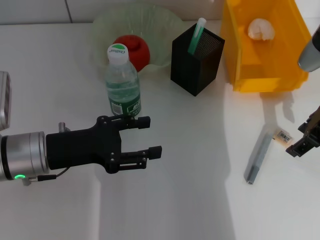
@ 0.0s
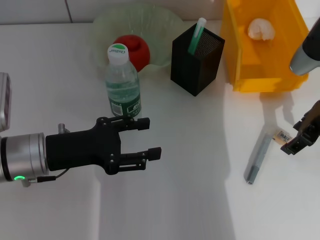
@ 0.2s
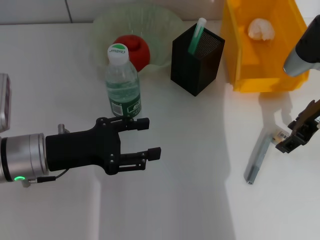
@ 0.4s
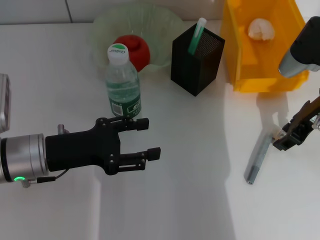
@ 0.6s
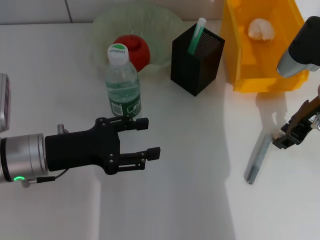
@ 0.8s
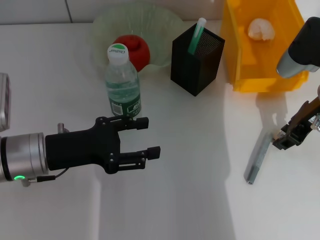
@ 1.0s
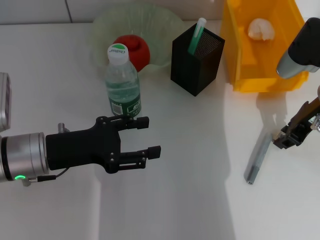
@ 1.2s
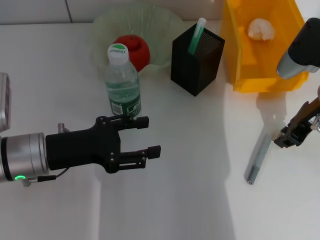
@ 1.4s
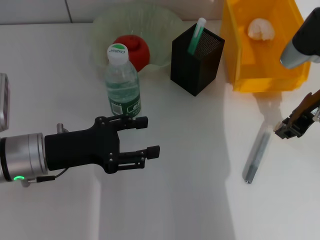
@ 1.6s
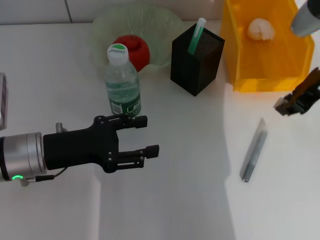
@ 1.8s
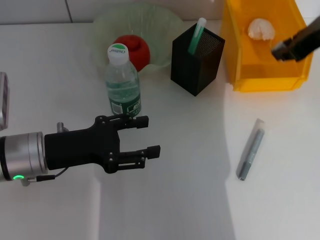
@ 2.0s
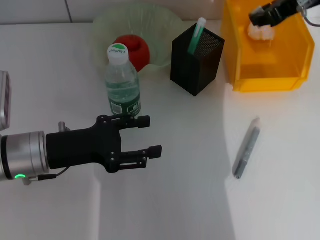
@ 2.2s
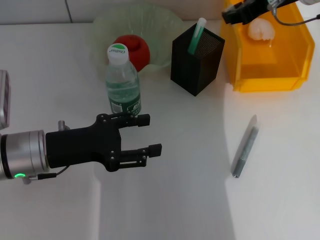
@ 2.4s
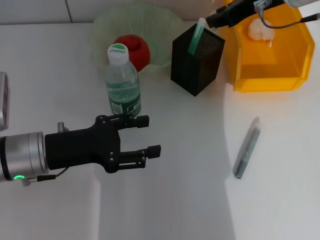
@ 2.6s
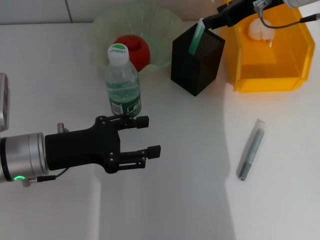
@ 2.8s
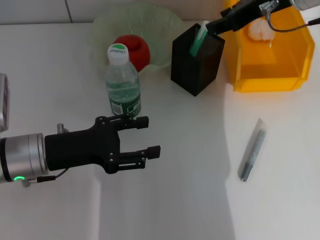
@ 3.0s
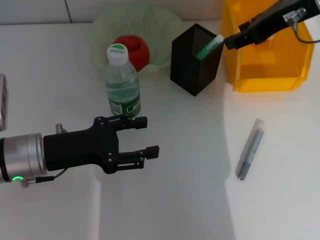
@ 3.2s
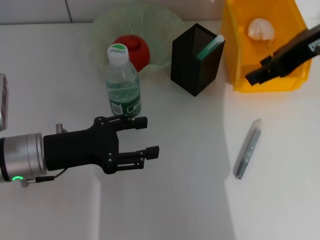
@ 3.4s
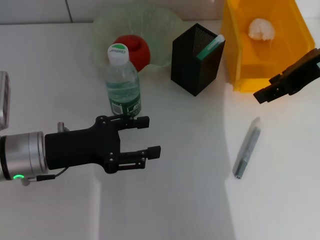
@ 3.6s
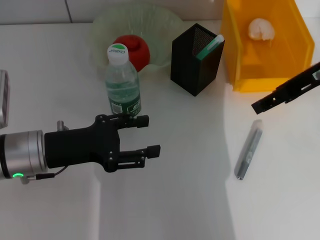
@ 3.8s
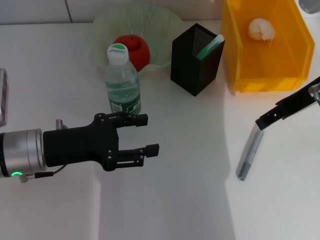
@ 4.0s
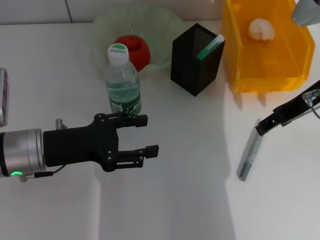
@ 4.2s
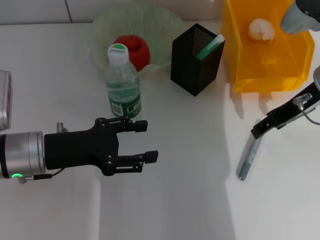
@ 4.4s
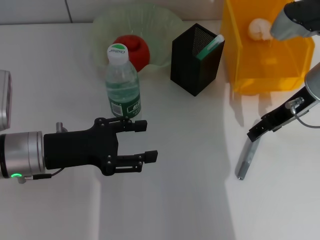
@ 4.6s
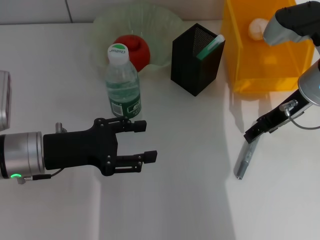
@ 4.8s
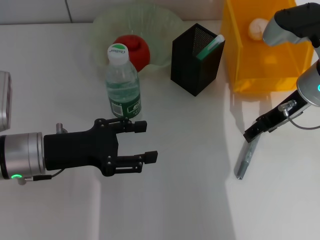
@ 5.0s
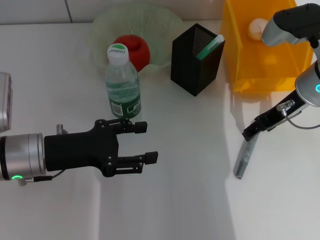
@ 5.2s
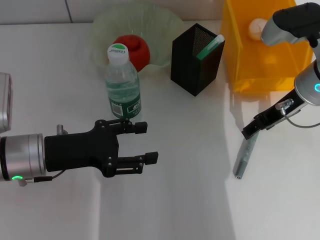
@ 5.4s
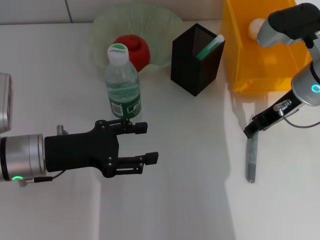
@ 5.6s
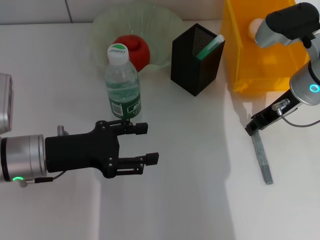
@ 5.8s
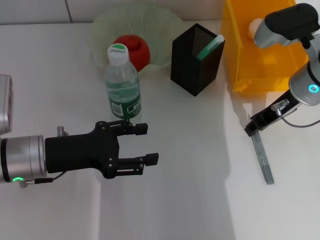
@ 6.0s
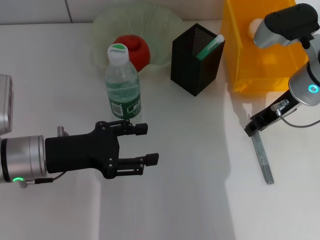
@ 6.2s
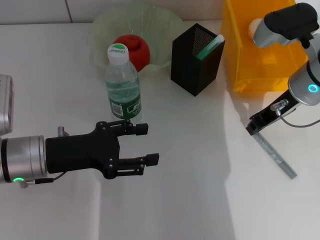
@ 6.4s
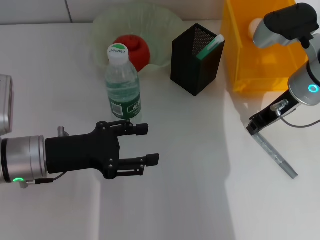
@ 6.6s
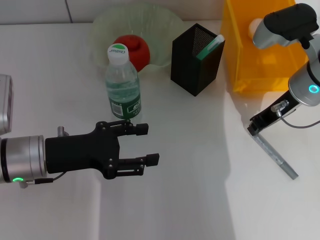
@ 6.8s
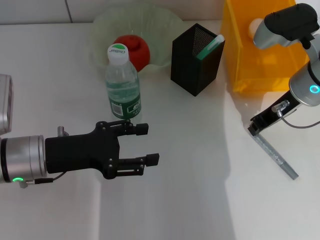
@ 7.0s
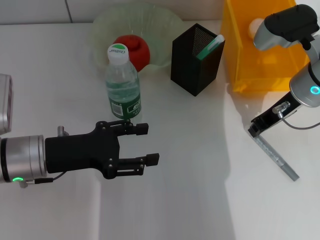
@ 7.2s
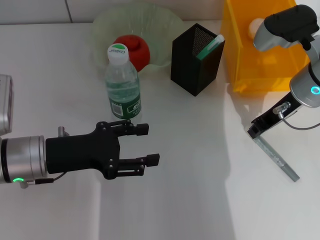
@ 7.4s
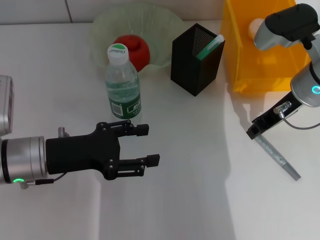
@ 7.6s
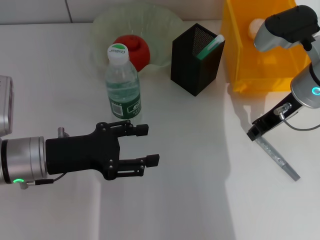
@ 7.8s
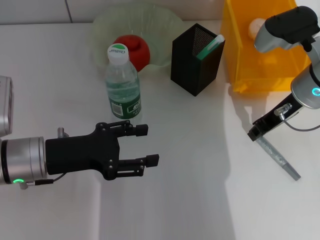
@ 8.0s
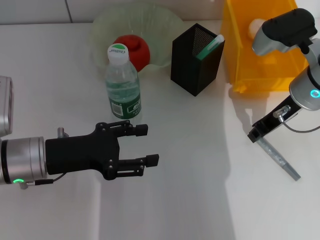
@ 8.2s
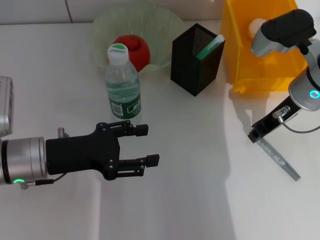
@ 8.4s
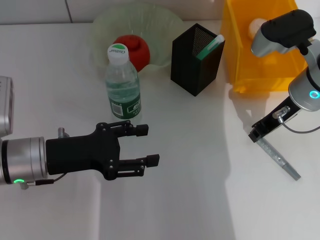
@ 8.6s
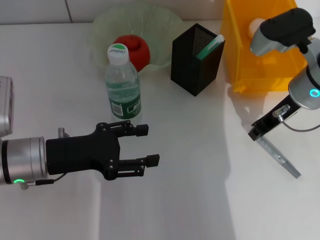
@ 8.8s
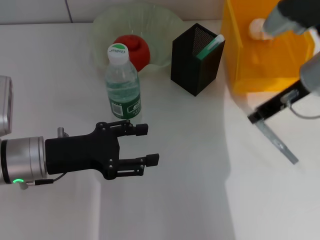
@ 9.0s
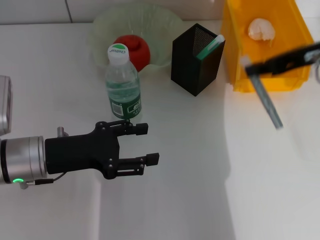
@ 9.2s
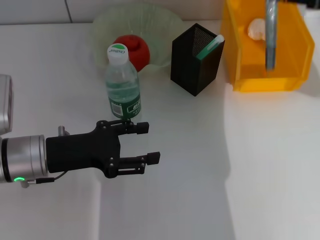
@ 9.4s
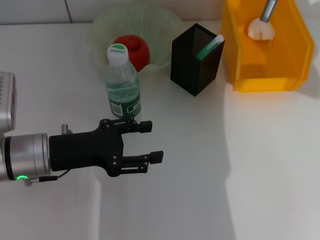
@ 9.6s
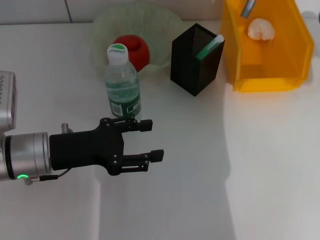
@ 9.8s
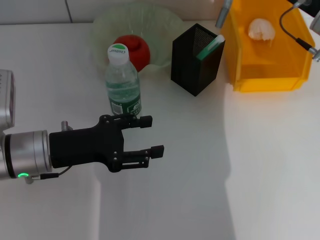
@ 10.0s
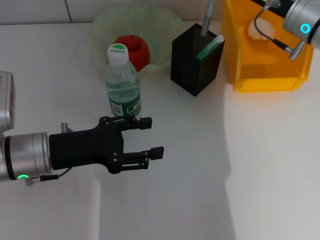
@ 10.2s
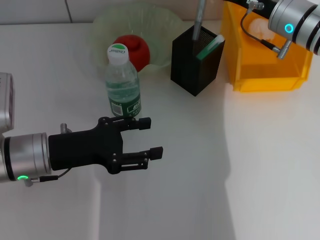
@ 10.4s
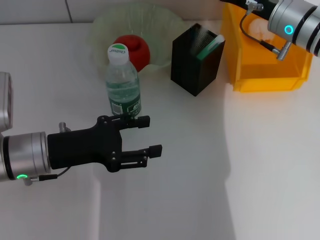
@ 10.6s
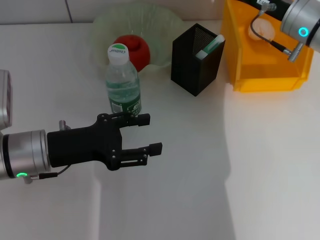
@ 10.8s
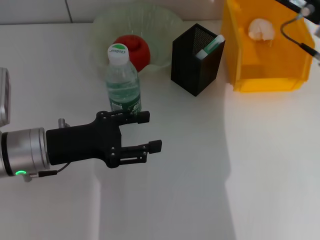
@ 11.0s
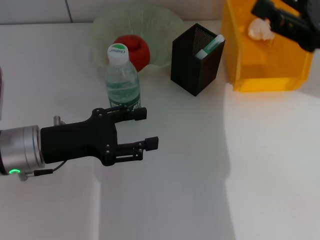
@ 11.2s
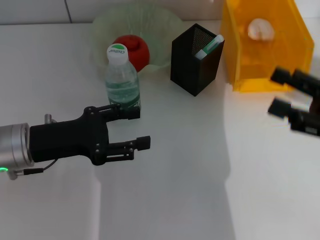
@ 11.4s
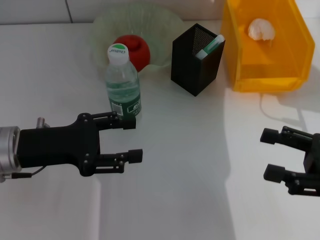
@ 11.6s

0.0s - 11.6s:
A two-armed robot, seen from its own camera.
Step, 1.6s - 3.0s: Put the eraser into the pen holder with the right hand.
Step, 3.2s - 8.4s: Grab the gray glue with the right hand.
Step, 8.6s - 10.6s: Place the gray glue into the pen holder with the right hand.
0.0s - 1.4s: The right gripper closes.
1.4s - 2.8s: The right gripper travels upward, forward and to the left by some 15 cm.
2.8s - 4.4s: The right gripper goes approximately 10 cm backward and downward, and opens up.
4.4s - 5.8s: There are only small adjustments of the grippers.
5.8s - 7.2s: The right gripper closes its fingers.
7.2s - 8.8s: Both grippers stay put.
8.8s - 10.2s: The right gripper shifts about 5 cm forward, and travels to the right and back again, approximately 10 cm each way.
10.2s - 11.6s: The right gripper shifts approximately 25 cm backward and to the right, and opens.

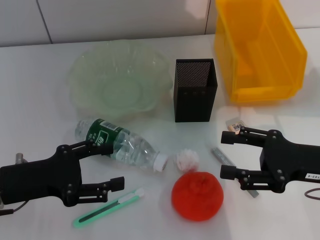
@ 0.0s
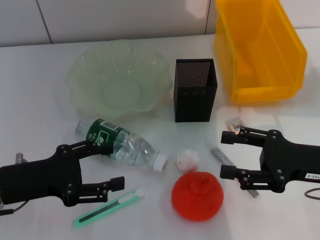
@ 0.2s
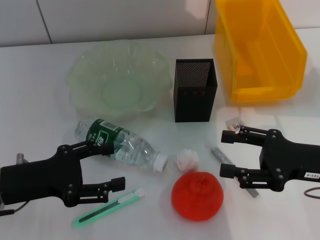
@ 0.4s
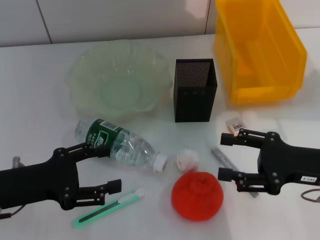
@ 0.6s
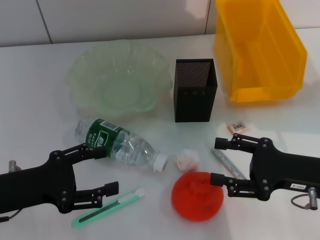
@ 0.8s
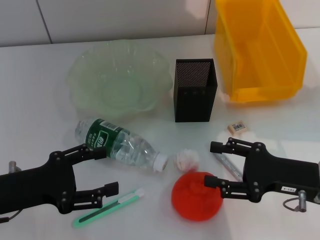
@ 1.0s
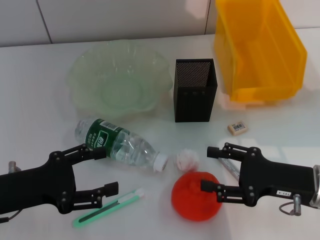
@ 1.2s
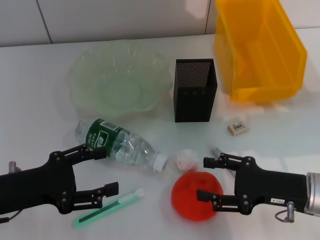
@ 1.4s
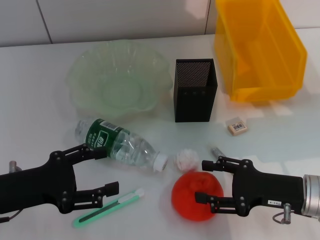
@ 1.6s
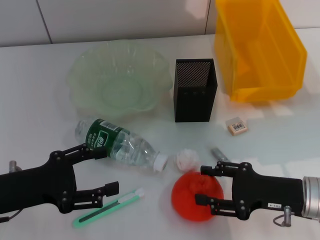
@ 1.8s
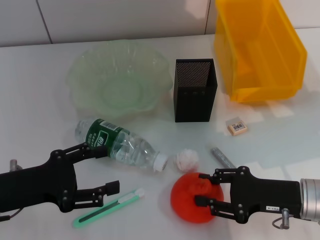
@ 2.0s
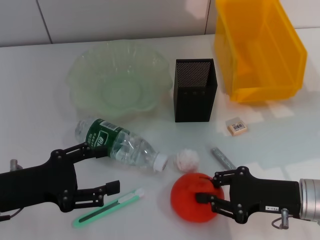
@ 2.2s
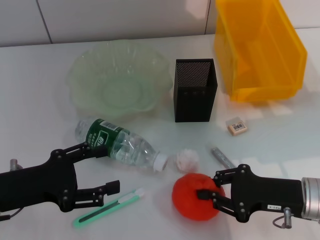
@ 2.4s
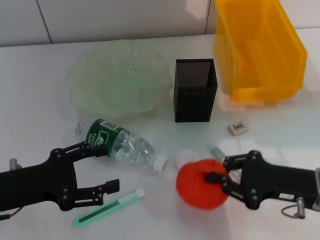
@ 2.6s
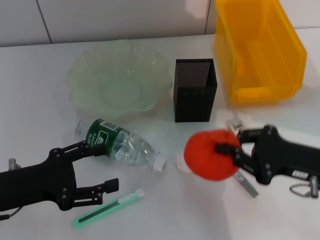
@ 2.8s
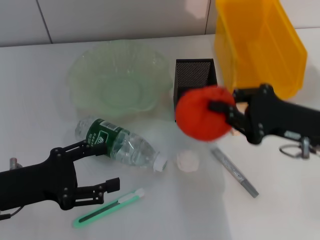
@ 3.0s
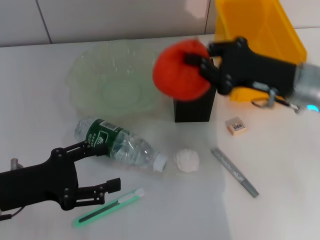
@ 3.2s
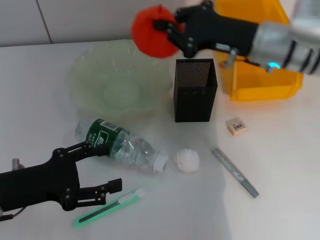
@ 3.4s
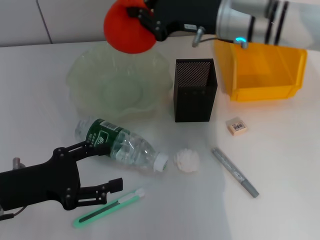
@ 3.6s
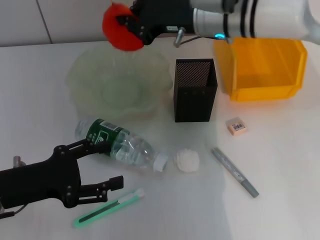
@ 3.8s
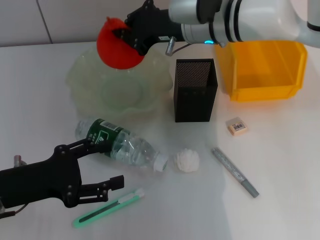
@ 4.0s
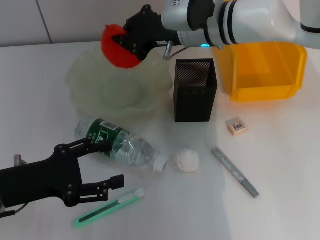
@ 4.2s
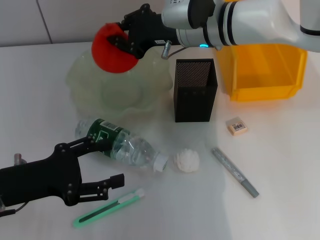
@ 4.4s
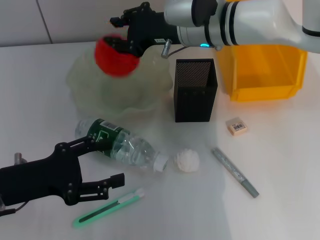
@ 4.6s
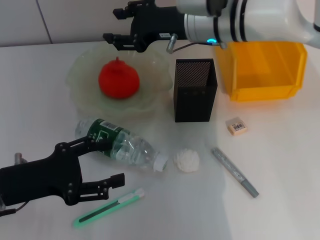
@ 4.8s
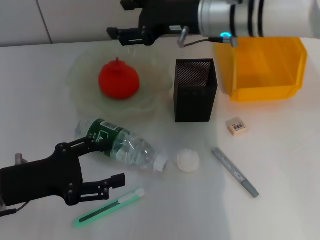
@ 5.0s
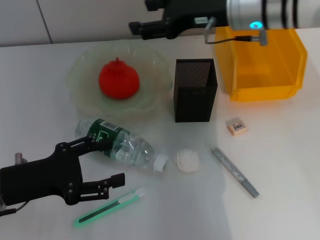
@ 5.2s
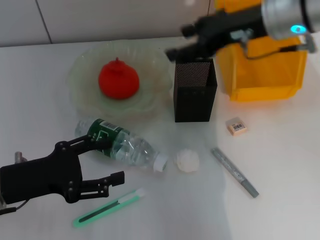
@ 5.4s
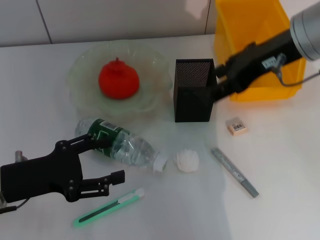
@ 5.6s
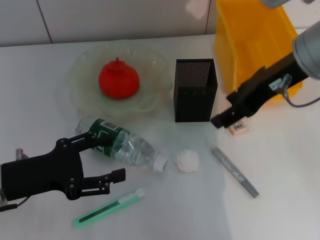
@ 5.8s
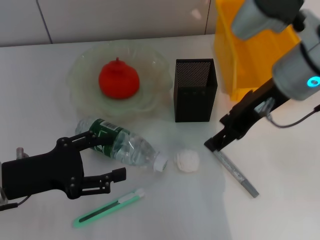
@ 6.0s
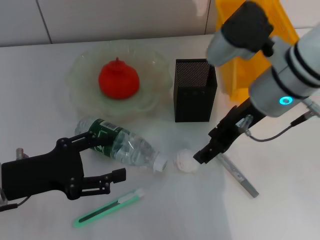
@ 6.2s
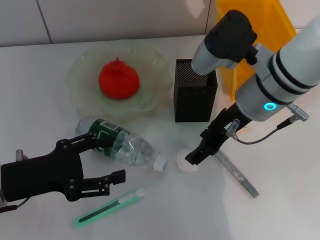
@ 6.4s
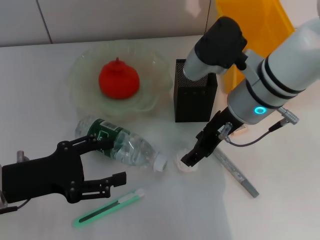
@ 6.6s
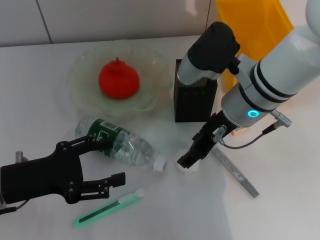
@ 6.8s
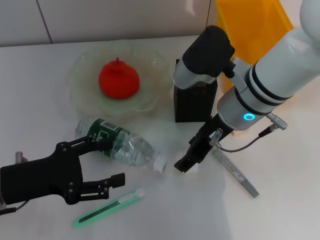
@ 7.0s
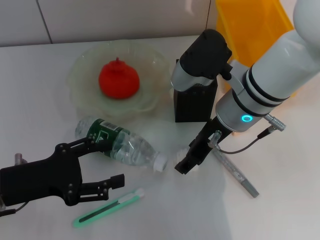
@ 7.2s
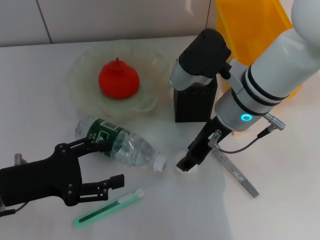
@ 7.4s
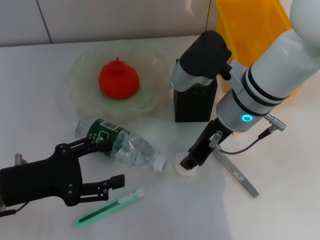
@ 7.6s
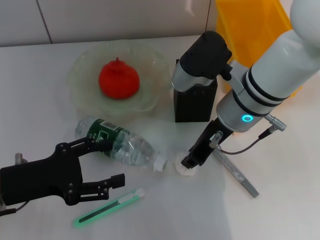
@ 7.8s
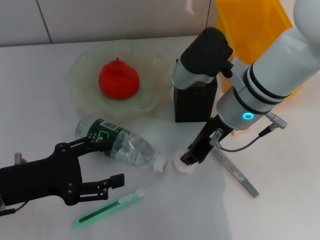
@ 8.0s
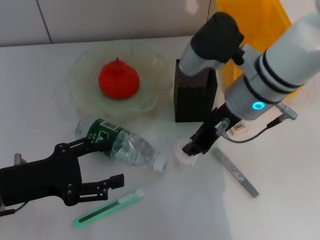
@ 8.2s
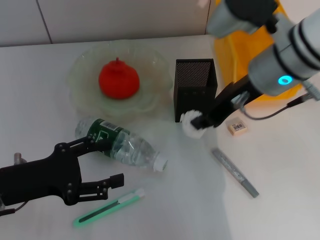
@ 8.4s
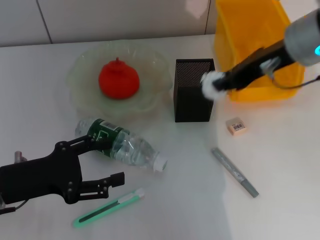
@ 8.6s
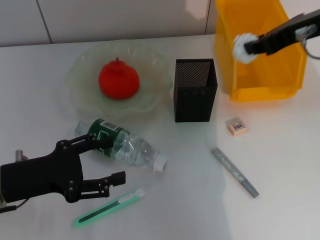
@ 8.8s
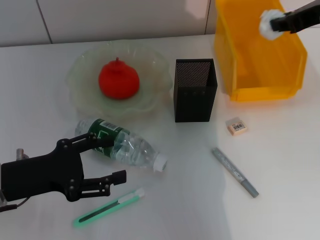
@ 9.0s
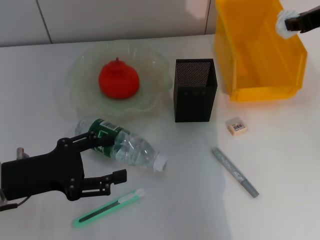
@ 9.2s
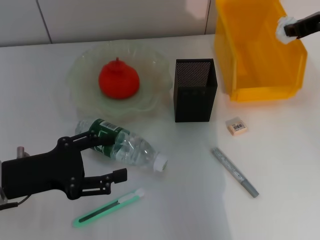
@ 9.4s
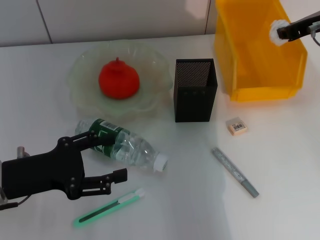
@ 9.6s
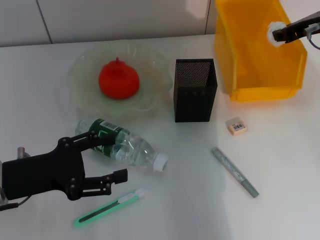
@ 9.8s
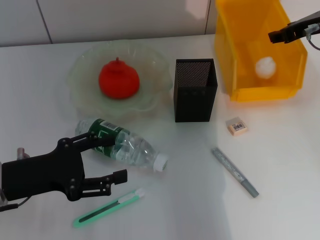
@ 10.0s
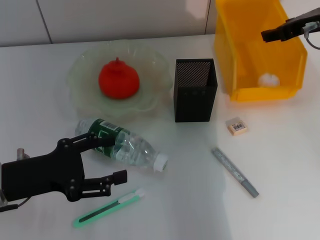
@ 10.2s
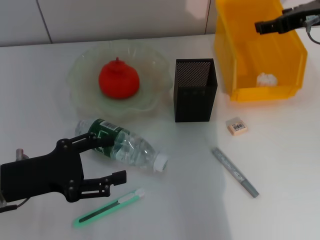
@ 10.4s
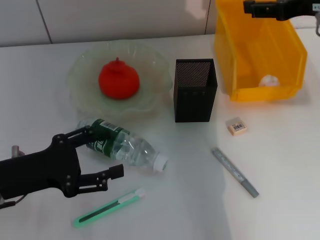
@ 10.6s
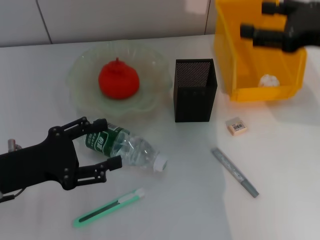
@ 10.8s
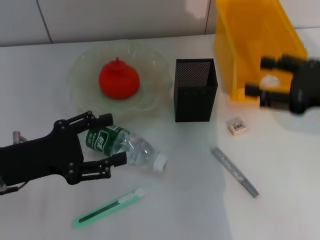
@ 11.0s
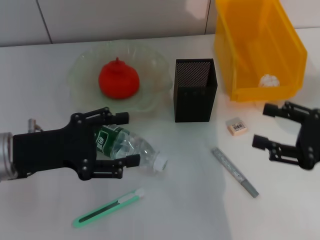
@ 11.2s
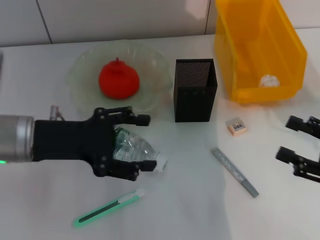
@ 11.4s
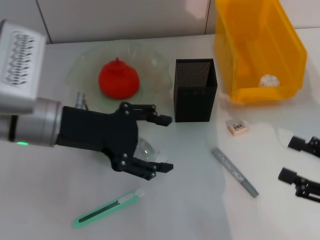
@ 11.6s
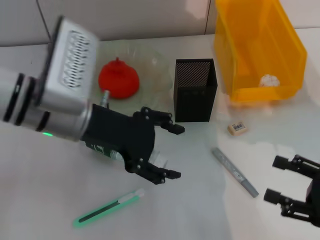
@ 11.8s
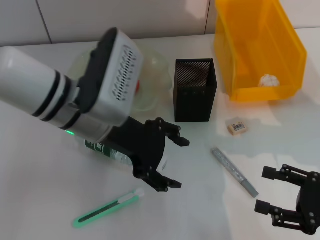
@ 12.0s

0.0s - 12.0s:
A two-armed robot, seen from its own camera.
Step, 0.0s - 2.2s: Grab the orange with the right hand.
Step, 2.4s - 4.8s: Place the orange into the fruit bowl with the right hand.
Step, 5.0s - 7.8s: Grab the paper ball with the right hand.
Step, 8.0s - 10.6s: Place the paper ball into the trash can with the right hand.
0.0s - 1.6s: The right gripper travels downward by approximately 5 cm.
1.6s - 3.0s: The right gripper moves upward, about 5 cm, and closes up.
3.0s - 4.4s: The right gripper moves forward and to the left, about 25 cm.
4.4s - 6.0s: The right gripper travels backward, to the right and upward by approximately 15 cm, and opens up.
6.0s - 7.6s: The right gripper shifts some 10 cm downward and to the left.
7.6s - 9.0s: The right gripper is displaced to the right and upward by roughly 20 cm, and closes up.
9.0s - 10.4s: The right gripper ends up approximately 5 cm from where it was, and opens its fingers.
10.4s - 12.0s: The left gripper goes approximately 15 cm to the right, upward and forward. Meanwhile the right gripper goes about 30 cm backward and downward.
